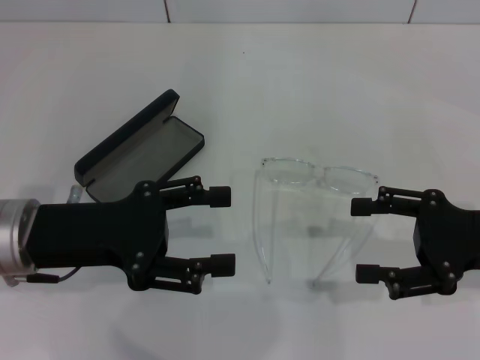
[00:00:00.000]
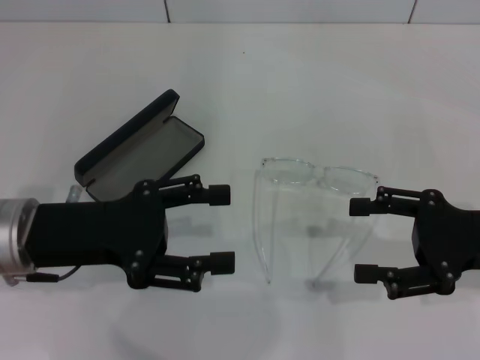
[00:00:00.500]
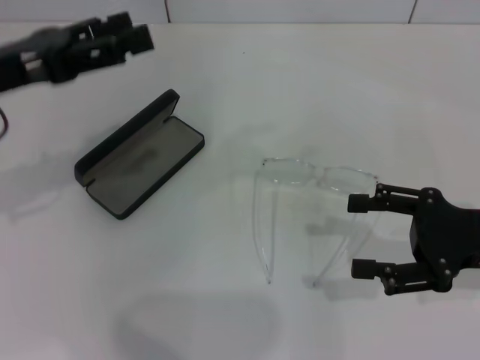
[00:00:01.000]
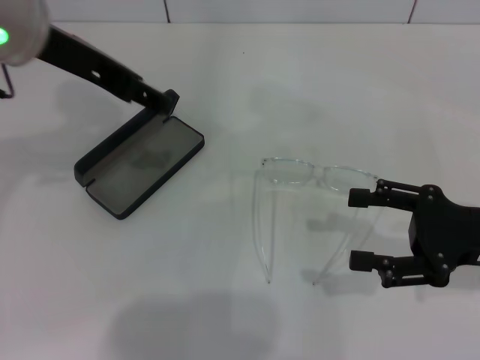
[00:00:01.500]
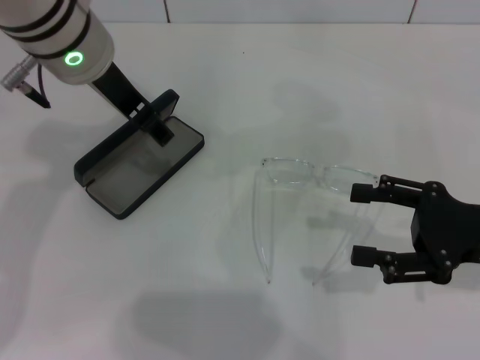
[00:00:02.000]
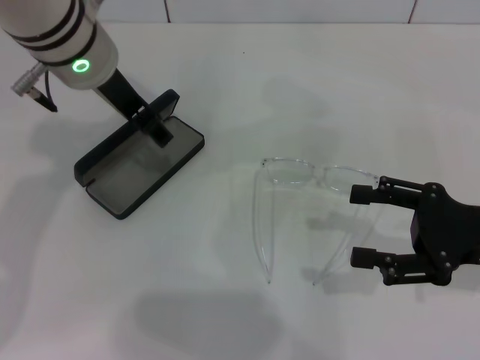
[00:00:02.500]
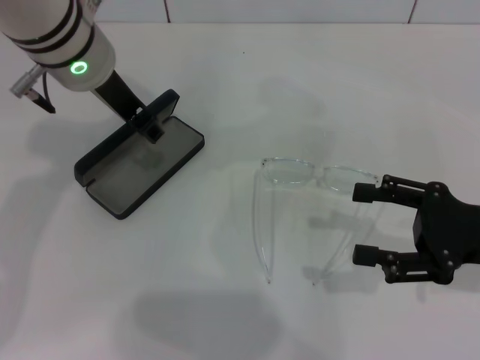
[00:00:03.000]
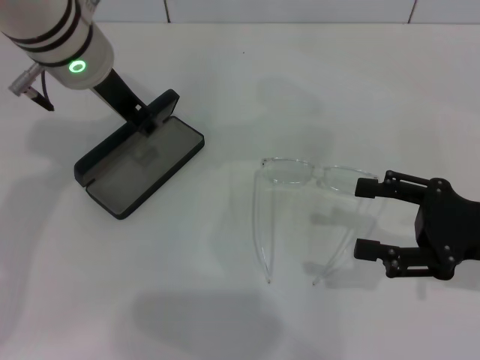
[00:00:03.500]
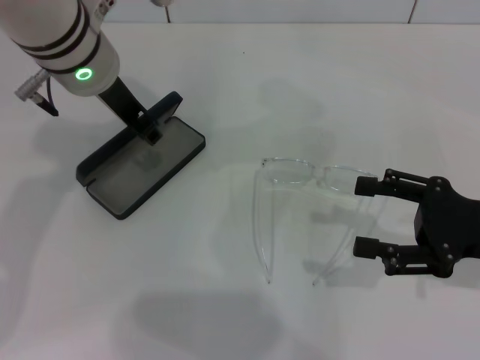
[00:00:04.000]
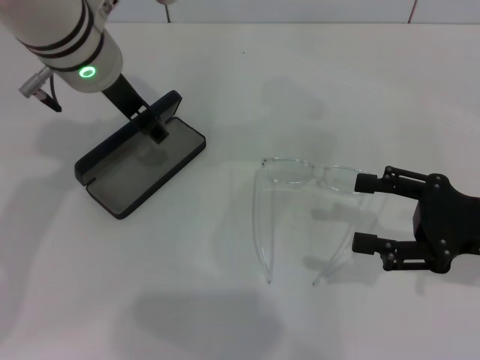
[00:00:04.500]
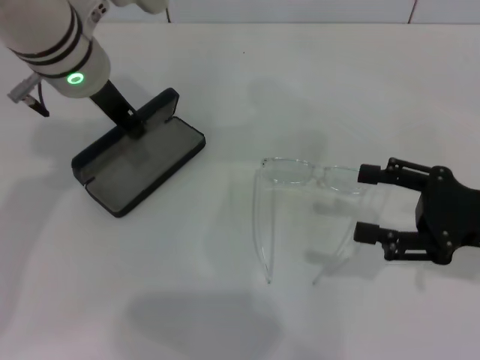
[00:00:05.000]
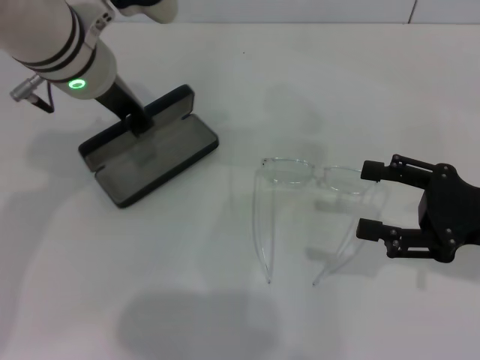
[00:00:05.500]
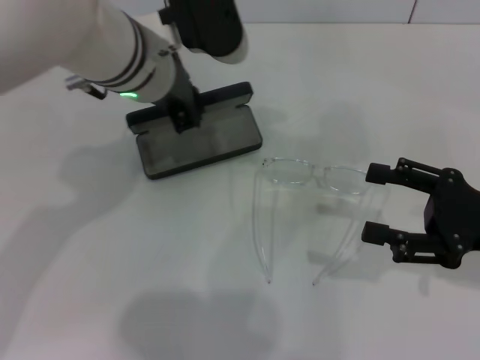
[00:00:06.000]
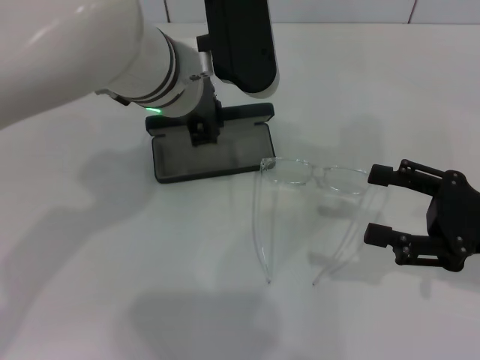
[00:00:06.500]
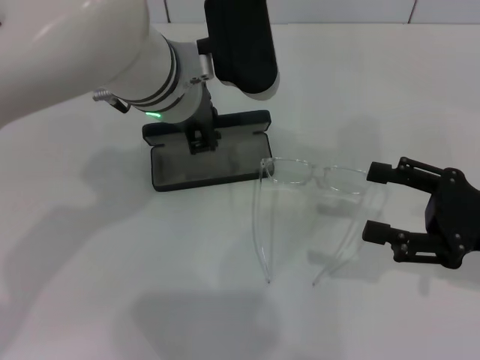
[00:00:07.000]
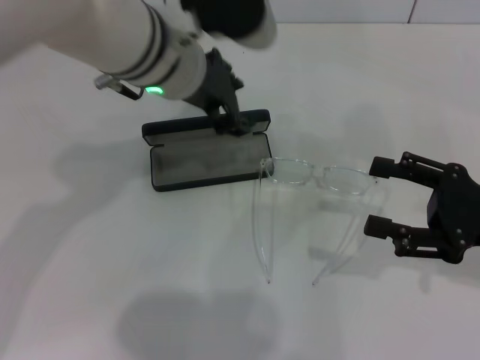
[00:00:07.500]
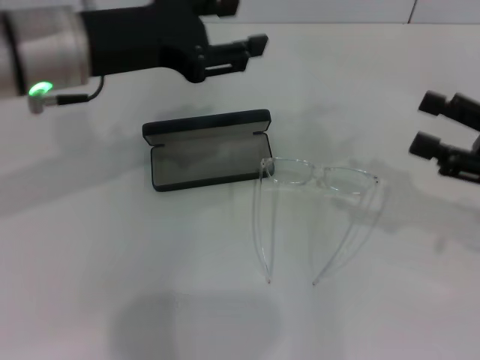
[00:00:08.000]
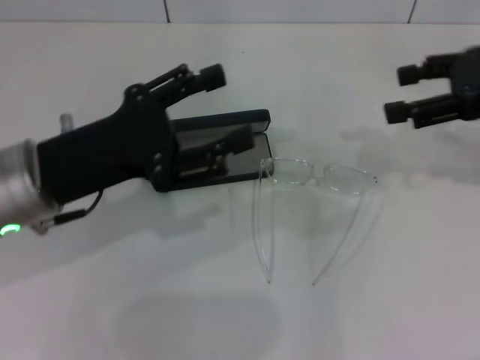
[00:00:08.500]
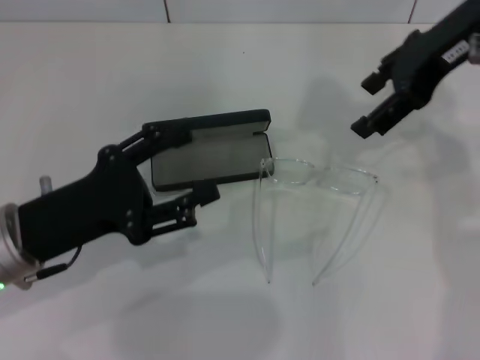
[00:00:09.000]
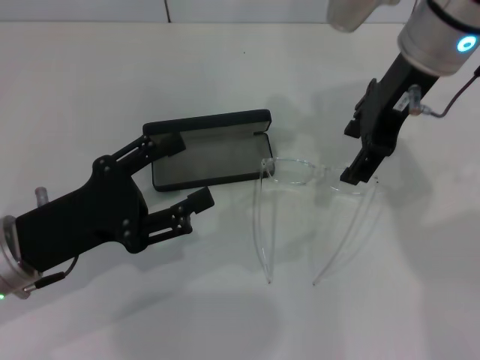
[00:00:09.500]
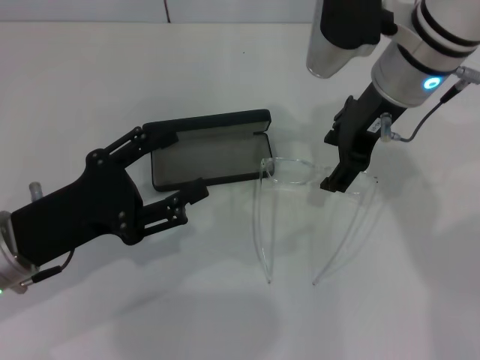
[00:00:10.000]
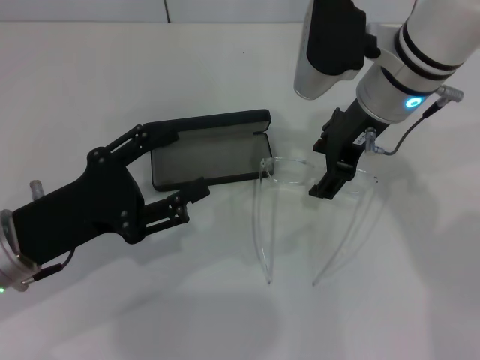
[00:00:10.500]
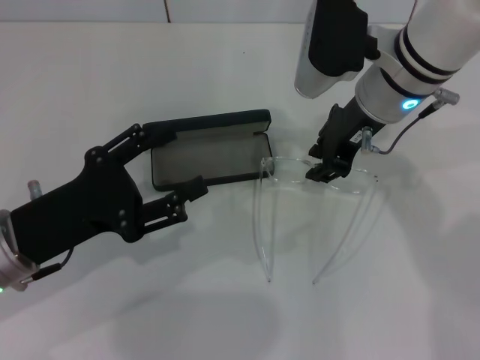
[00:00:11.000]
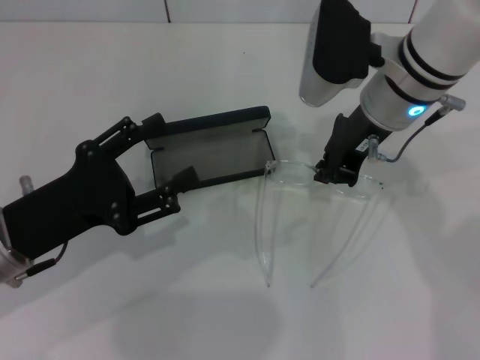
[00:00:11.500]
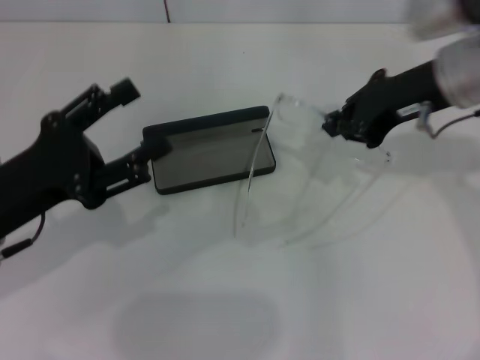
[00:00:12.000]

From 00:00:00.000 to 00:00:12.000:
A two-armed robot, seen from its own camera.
Step, from 00:00:00.000 to 00:00:05.000: Grab the glasses case with your left hand.
Step, from 00:00:05.500 to 00:00:07.000: Place the glasses case in the center of the table with your left hand.
Step, from 00:00:07.500 to 00:00:11.000: Grab the eyeglass frame with your right hand.
From 00:00:00.000 to 00:00:02.000: The left gripper heads forward, upward and to the right, covering about 20 cm.
From 00:00:02.000 to 00:00:04.000: The left gripper closes its fingers.
From 00:00:04.000 to 00:00:06.000: The left gripper opens, then closes again.
From 00:00:06.000 to 00:00:08.000: The left gripper moves to the left, about 10 cm, and opens up.
From 00:00:08.000 to 00:00:10.000: The right gripper travels to the left, forward and upward by some 25 cm. Meanwhile the left gripper shifts about 20 cm downward, backward and to the left.
From 00:00:10.000 to 00:00:12.000: The right gripper is displaced to the right by roughly 5 cm, and closes its fingers.

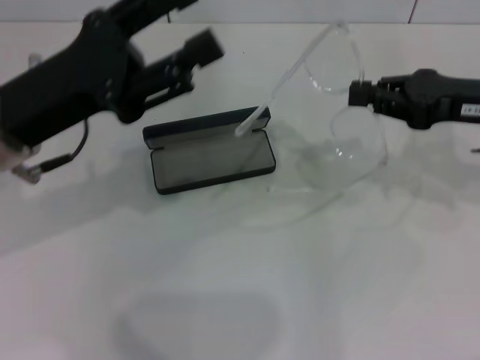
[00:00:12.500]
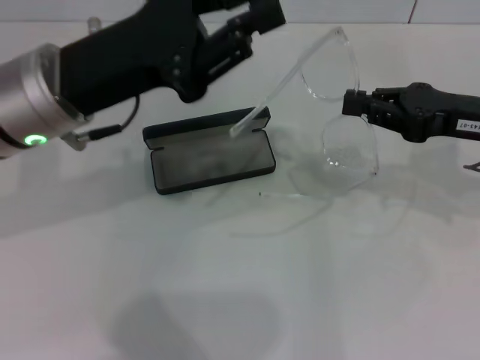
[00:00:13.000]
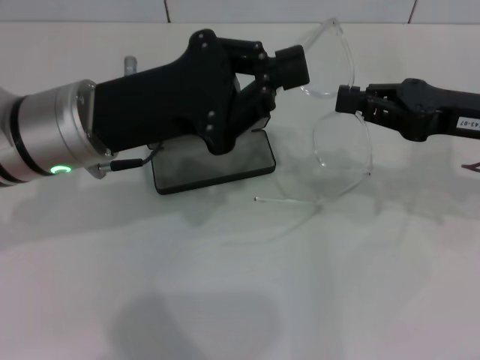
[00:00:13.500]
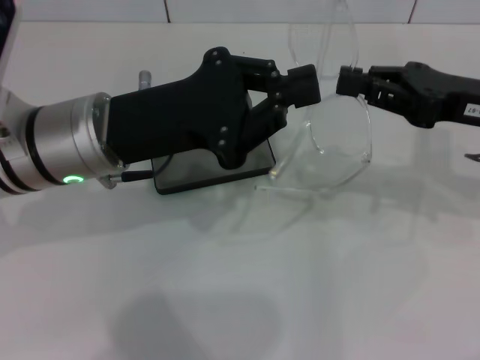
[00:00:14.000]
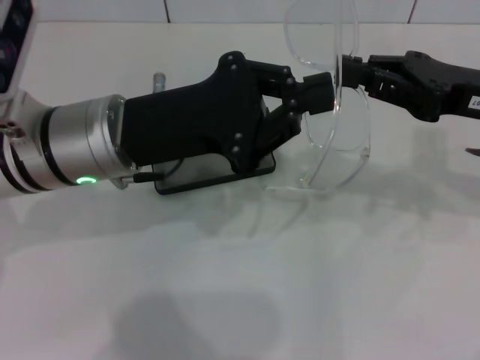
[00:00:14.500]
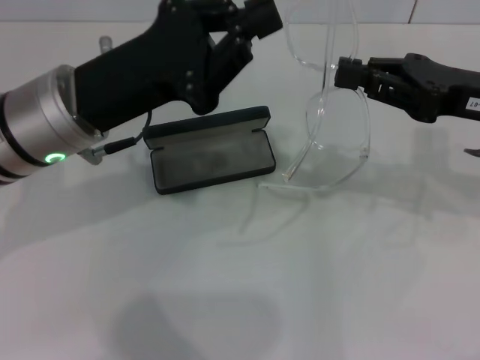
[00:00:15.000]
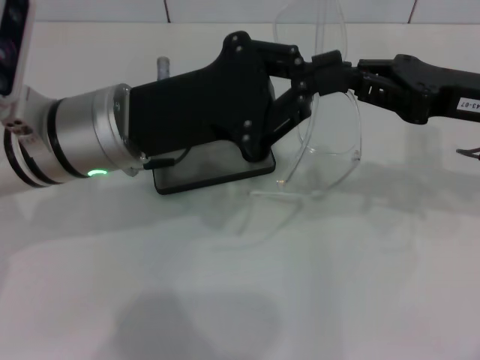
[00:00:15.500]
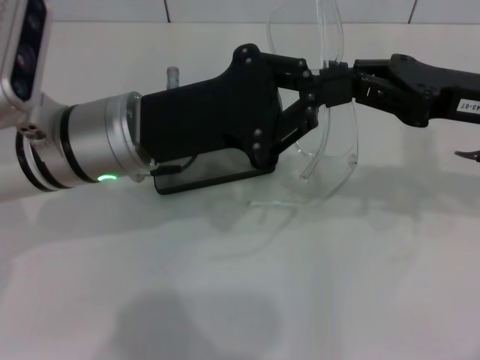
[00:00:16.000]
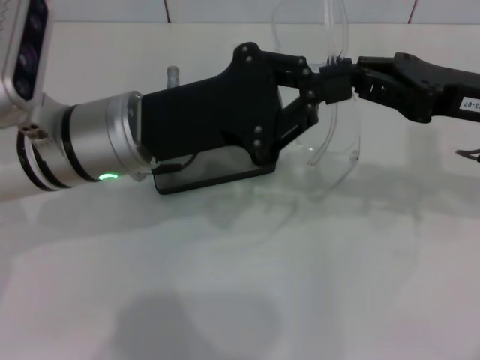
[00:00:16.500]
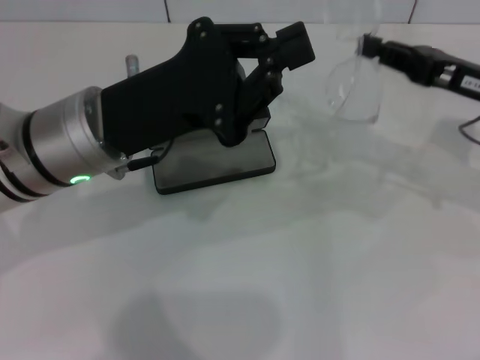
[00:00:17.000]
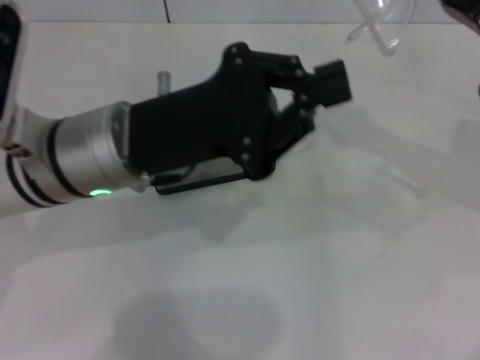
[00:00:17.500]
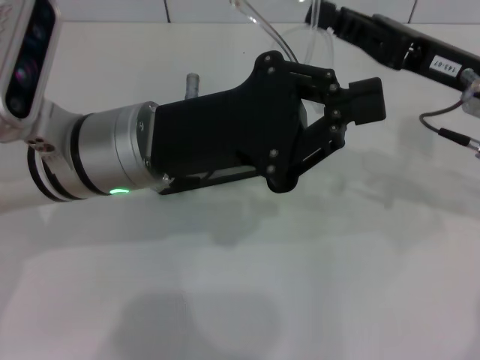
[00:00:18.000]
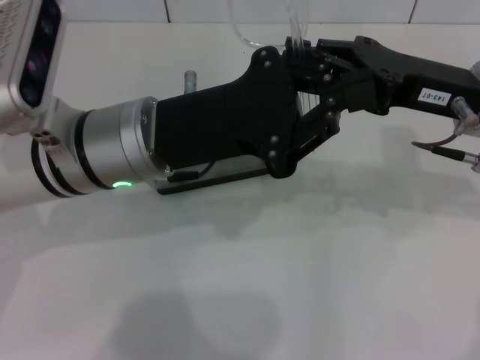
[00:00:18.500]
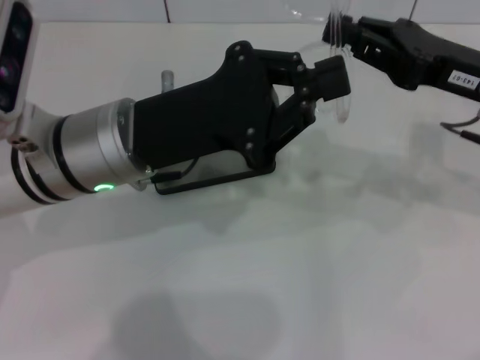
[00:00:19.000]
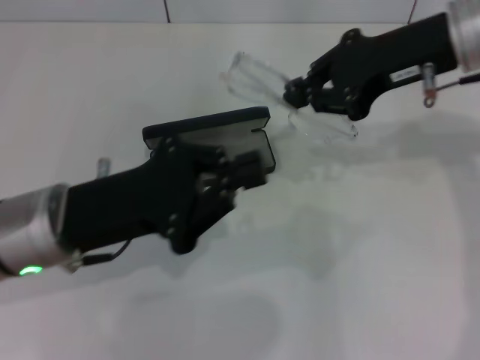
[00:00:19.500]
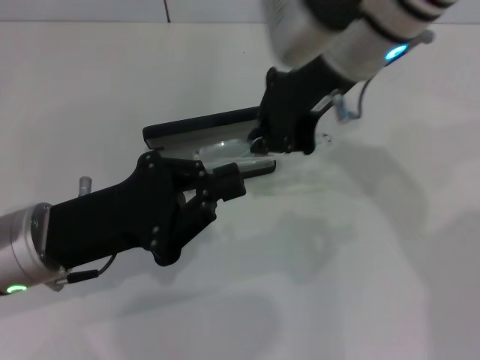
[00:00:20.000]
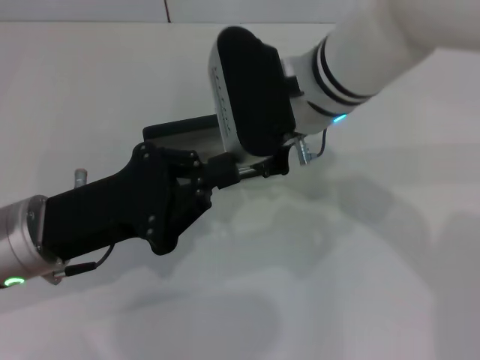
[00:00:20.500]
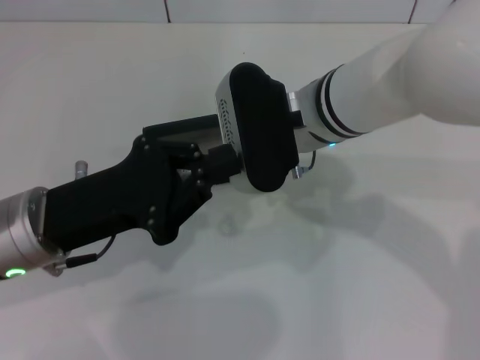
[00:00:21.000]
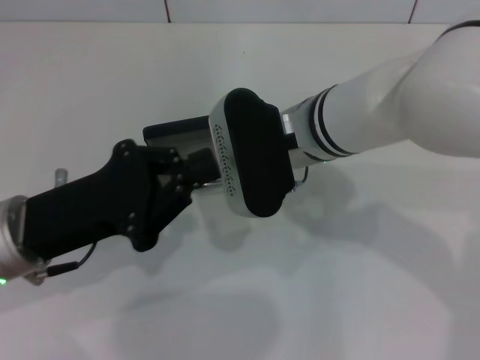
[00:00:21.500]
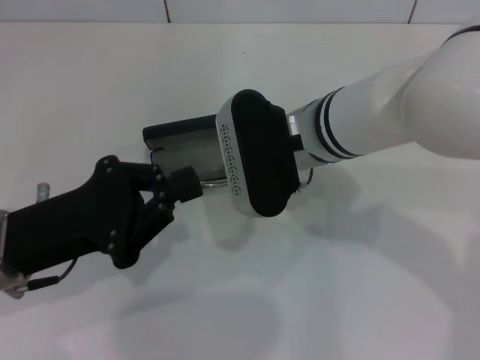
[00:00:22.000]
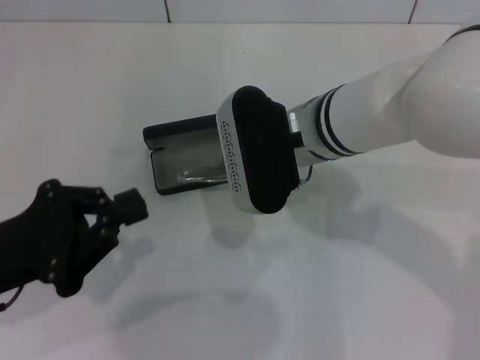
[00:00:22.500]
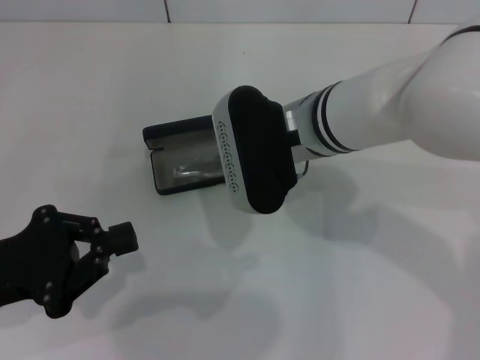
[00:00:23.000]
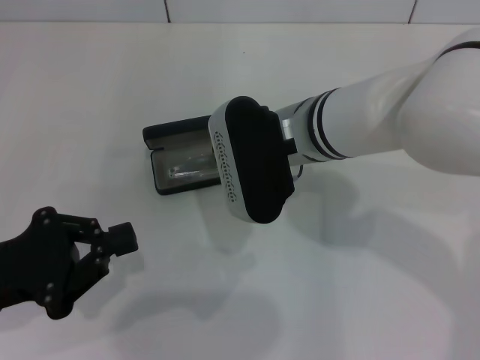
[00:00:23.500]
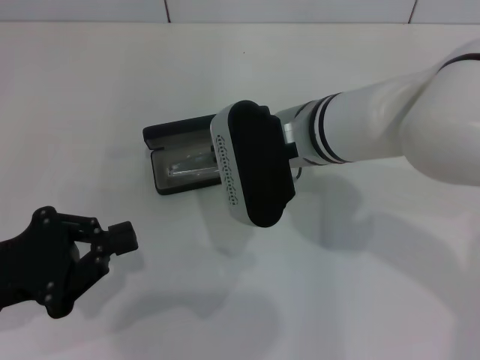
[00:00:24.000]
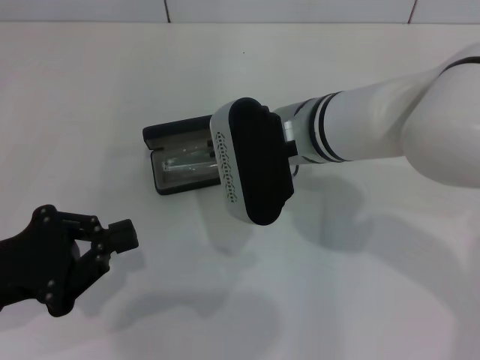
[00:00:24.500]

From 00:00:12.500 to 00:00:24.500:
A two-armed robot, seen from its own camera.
Step, from 00:00:12.500 to 00:00:18.000: Fold the frame with your left hand.
From 00:00:12.500 to 00:00:14.500: The left gripper shifts some 5 cm to the right, and closes its fingers.
From 00:00:14.500 to 00:00:16.500: The grippers move only a little.
From 00:00:18.500 to 00:00:20.500: The right gripper travels to the left by about 15 cm. Meanwhile the left gripper goes roughly 10 cm to the left and backward.
From 00:00:20.500 to 00:00:22.500: The left gripper travels to the left by some 5 cm.
From 00:00:22.500 to 00:00:24.500: There are only small adjustments of the grippers.

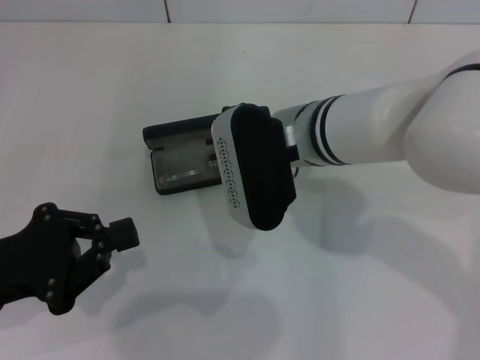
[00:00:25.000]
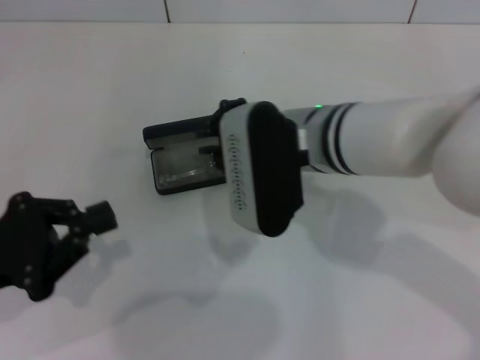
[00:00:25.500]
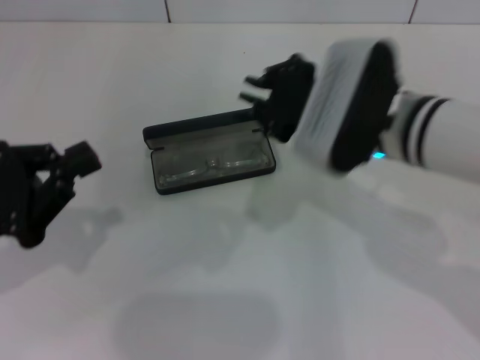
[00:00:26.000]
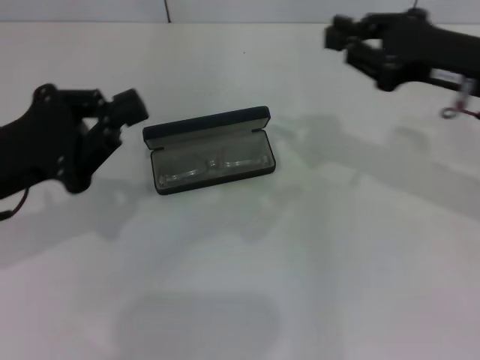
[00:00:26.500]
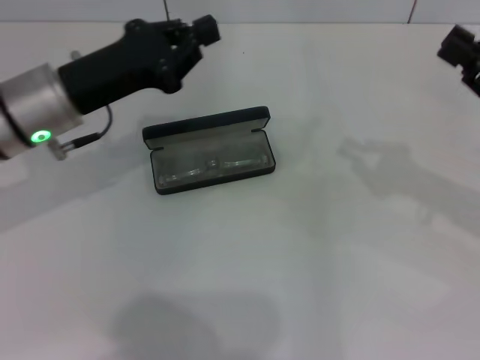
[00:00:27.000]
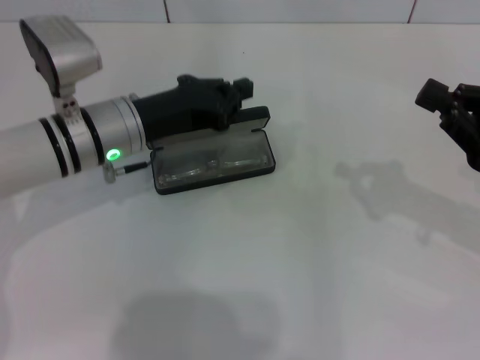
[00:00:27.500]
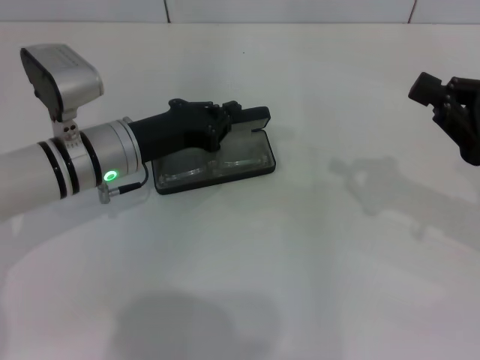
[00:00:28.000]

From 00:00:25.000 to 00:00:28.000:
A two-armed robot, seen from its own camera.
From 00:00:25.000 to 00:00:26.500: The left gripper heads forward, covering roughly 5 cm. Meanwhile the right gripper shifts about 20 cm to the right.
From 00:00:26.500 to 00:00:28.000: The left gripper goes some 15 cm to the right, forward and downward; the right gripper is displaced to the right, downward and backward by roughly 10 cm.
